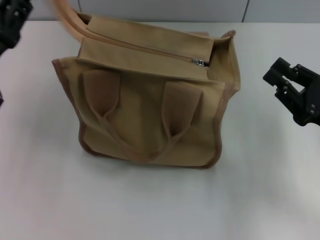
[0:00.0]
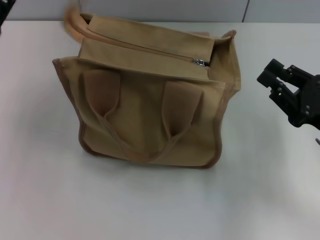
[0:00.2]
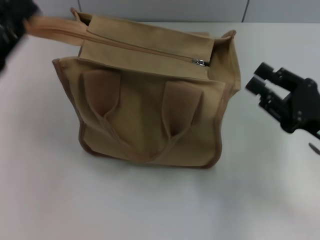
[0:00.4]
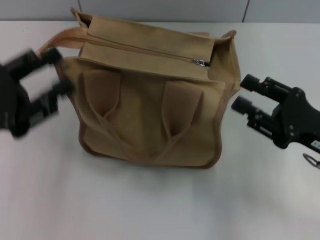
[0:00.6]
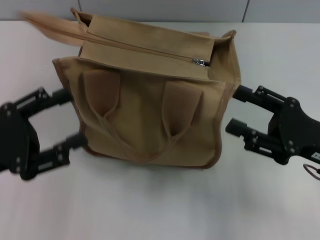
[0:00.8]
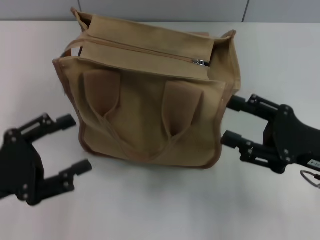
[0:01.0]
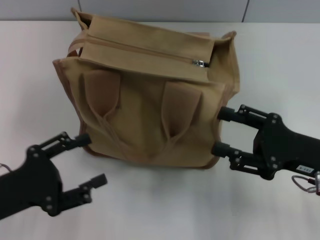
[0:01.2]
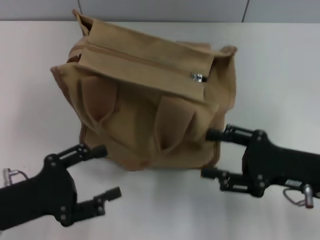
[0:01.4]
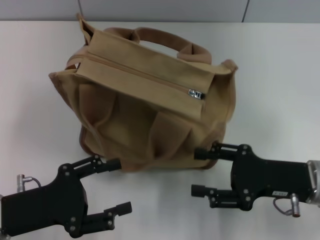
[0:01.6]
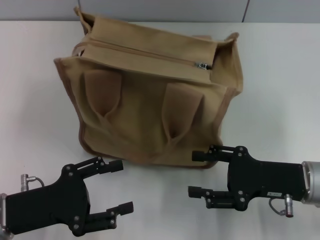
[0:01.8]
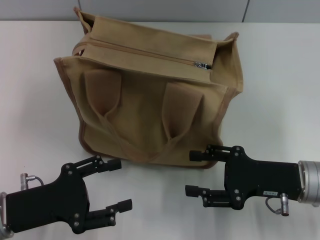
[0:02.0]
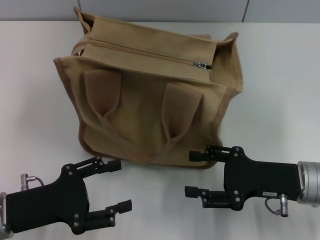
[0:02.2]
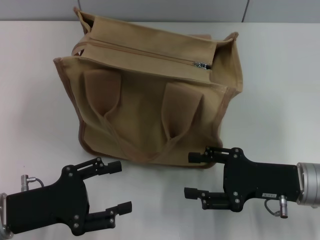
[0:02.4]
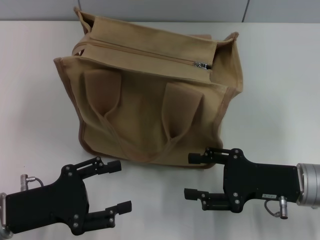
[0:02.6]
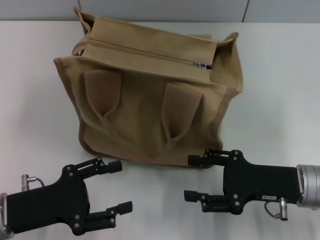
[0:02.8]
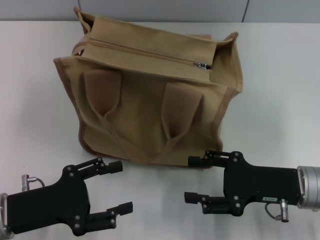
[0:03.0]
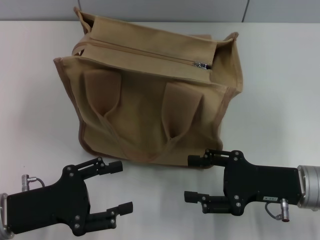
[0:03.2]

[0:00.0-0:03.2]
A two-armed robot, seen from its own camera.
0:00.0 to 0:01.6: The left gripper moves backward and downward, some 10 cm, and opens its fingers. The right gripper heads to the left, covering approximately 5 cm, and opens up.
